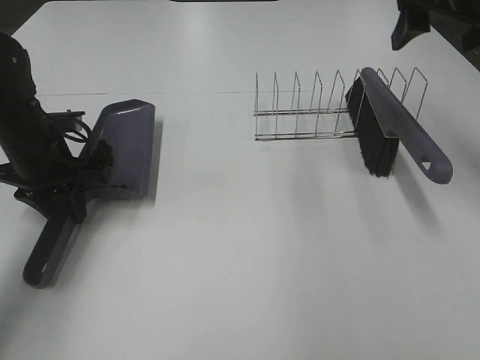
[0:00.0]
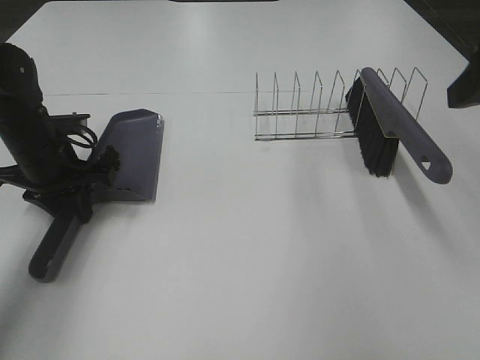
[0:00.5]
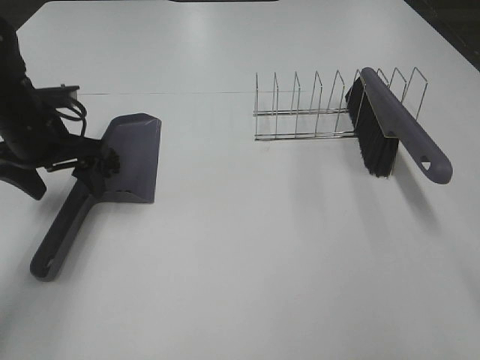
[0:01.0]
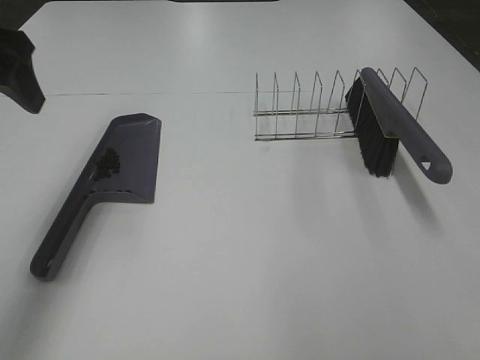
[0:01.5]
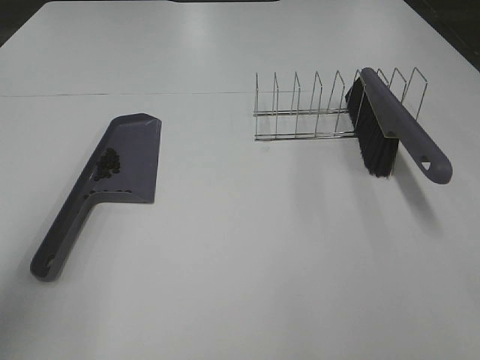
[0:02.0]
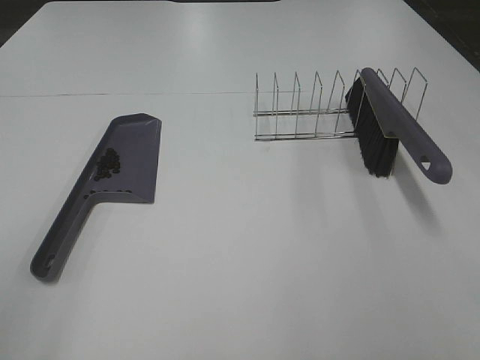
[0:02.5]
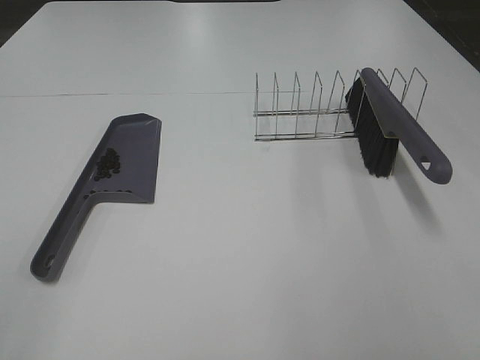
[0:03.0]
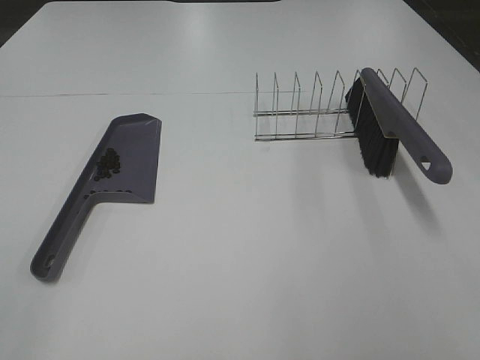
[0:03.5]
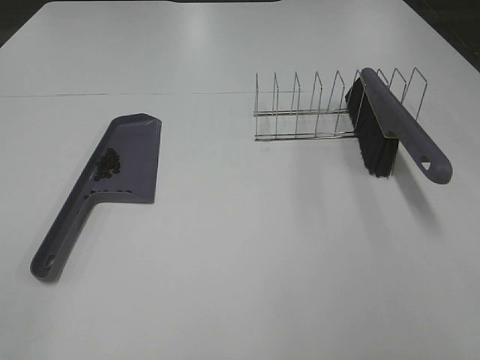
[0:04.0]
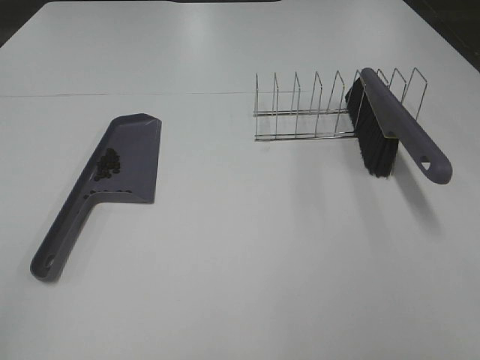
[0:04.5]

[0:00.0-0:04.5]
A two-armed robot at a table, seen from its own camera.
Task of the whole recording: Sweep Coffee Bean.
Step, 0:00.0 to 0:01.0: Left hand:place the dustpan on the table.
0:00.0 to 0:02.0: The left gripper goes roughly 30 cm backward and upward, and opens its fingers, while the right gripper shifts about 35 cm backward.
0:02.0 to 0:04.5: The left gripper moves backward, about 15 cm.
